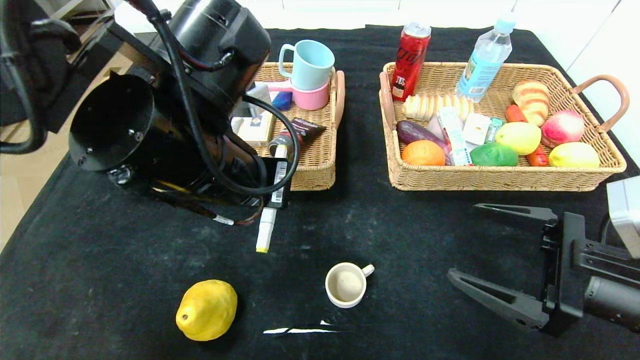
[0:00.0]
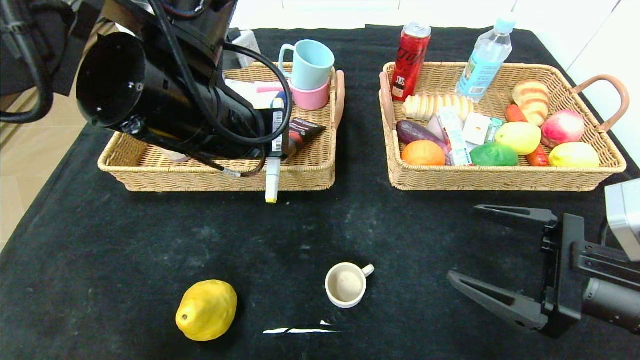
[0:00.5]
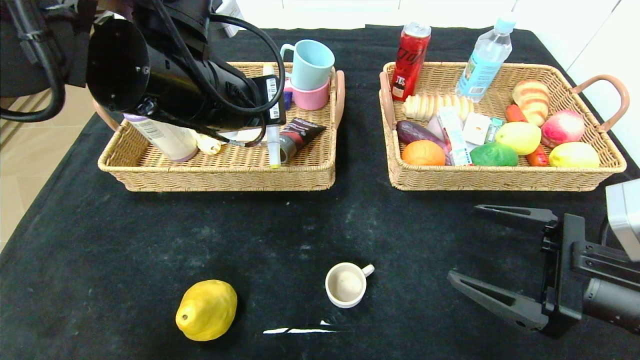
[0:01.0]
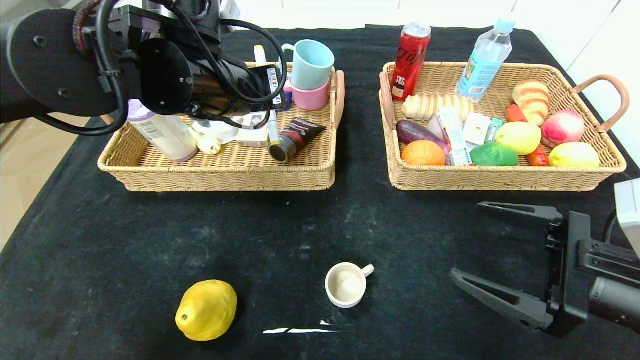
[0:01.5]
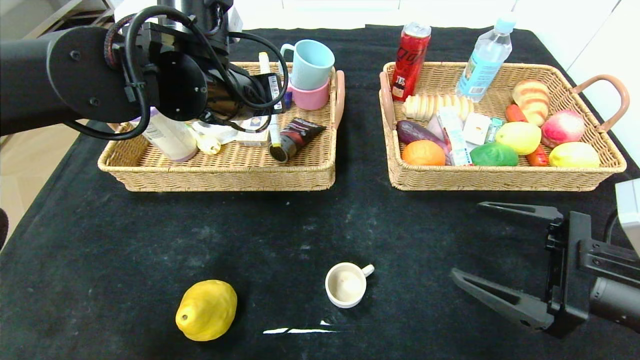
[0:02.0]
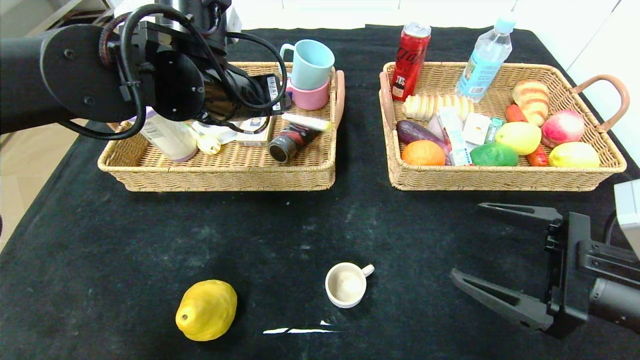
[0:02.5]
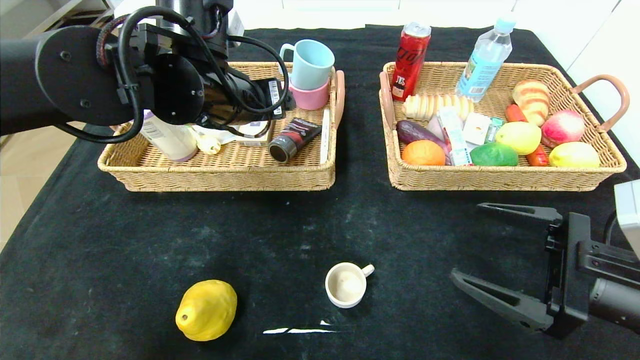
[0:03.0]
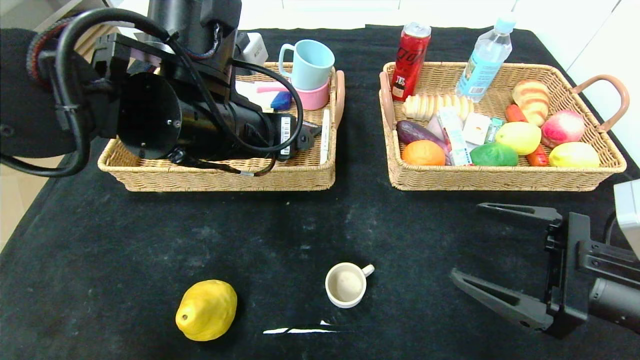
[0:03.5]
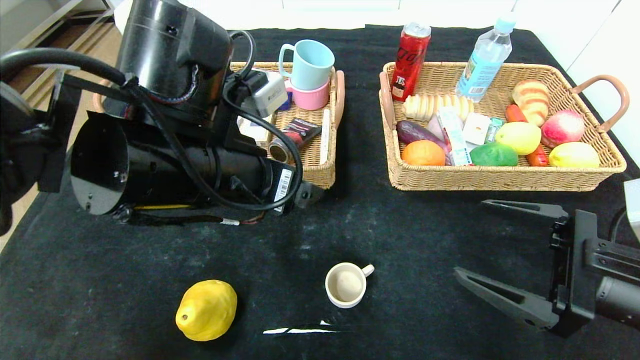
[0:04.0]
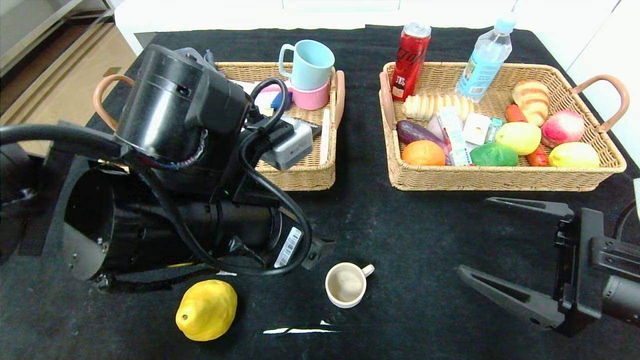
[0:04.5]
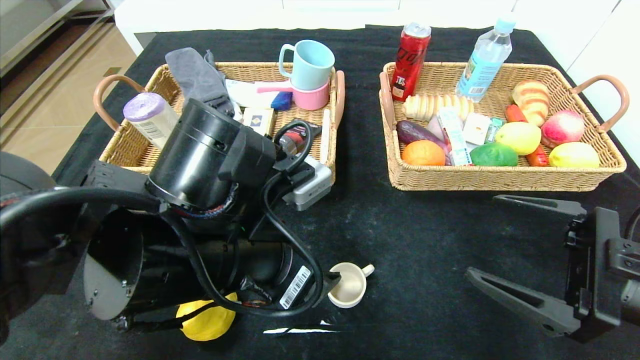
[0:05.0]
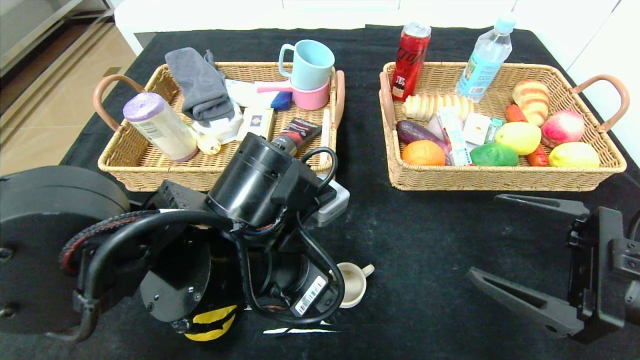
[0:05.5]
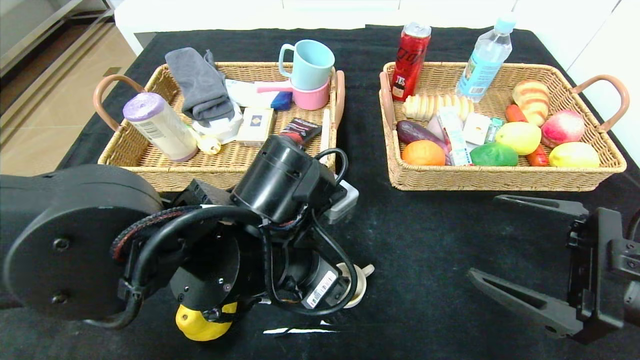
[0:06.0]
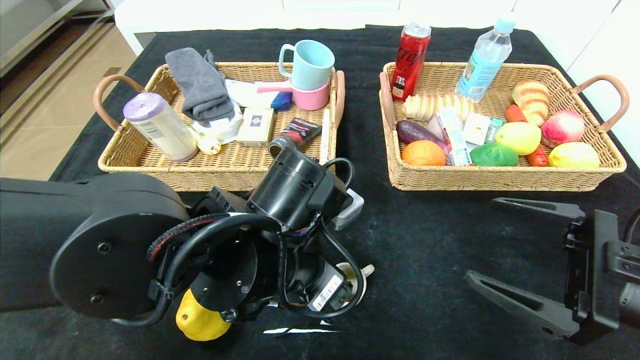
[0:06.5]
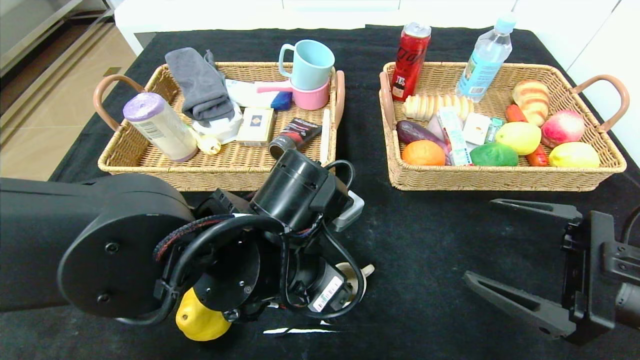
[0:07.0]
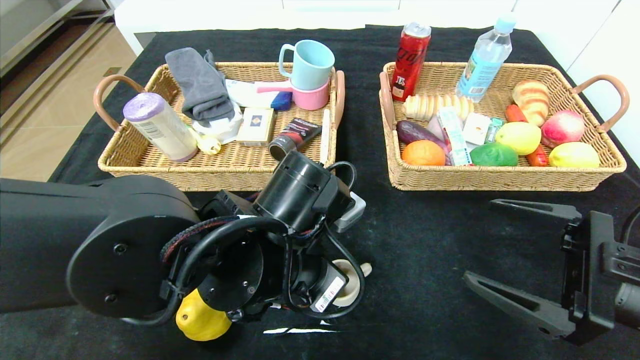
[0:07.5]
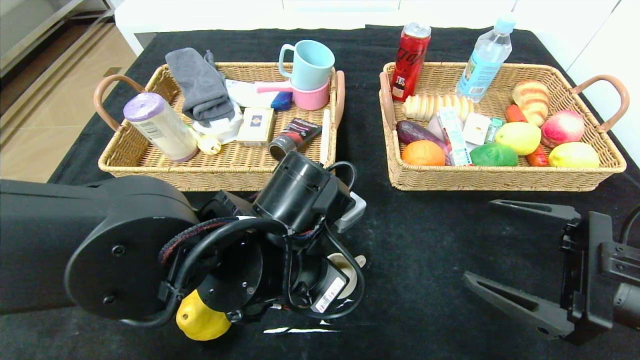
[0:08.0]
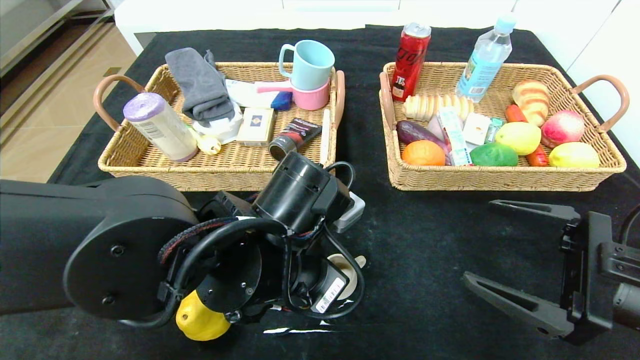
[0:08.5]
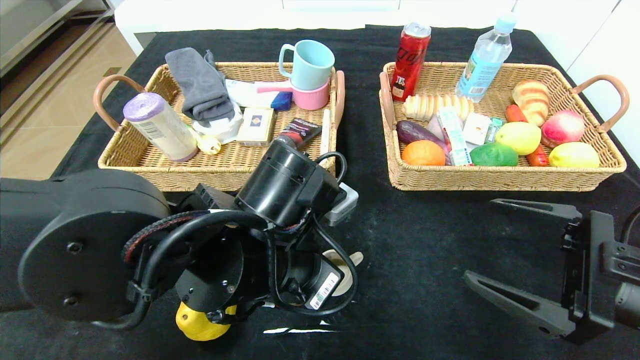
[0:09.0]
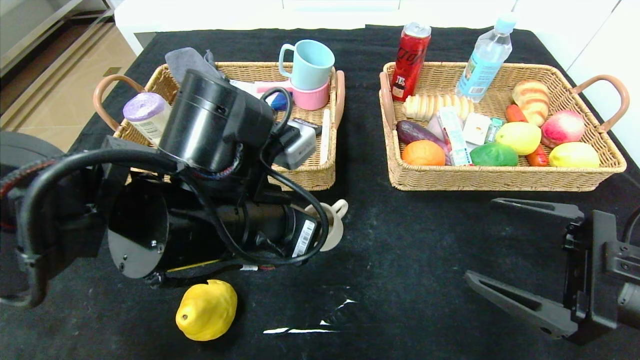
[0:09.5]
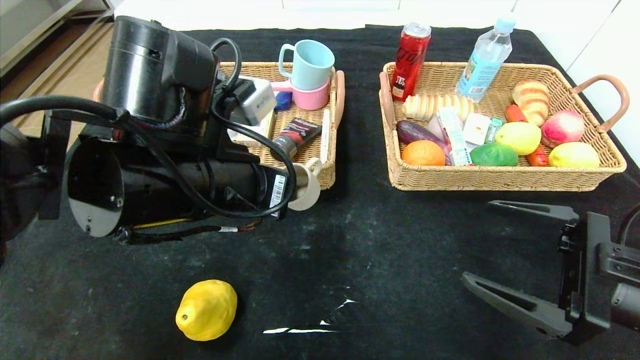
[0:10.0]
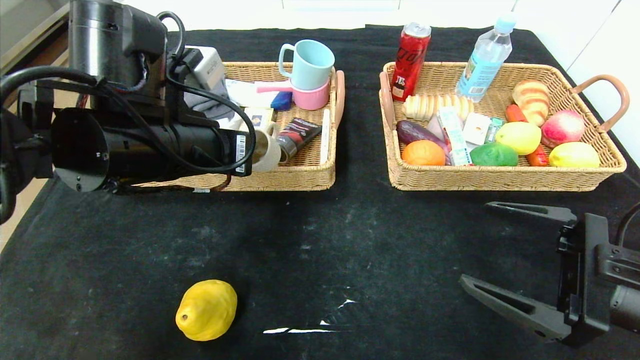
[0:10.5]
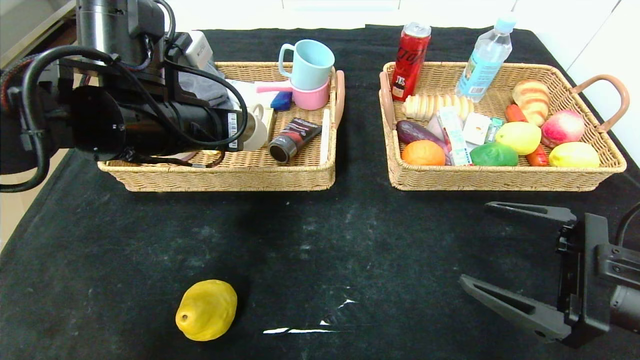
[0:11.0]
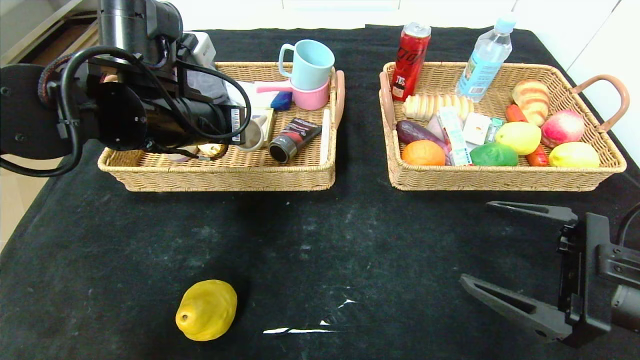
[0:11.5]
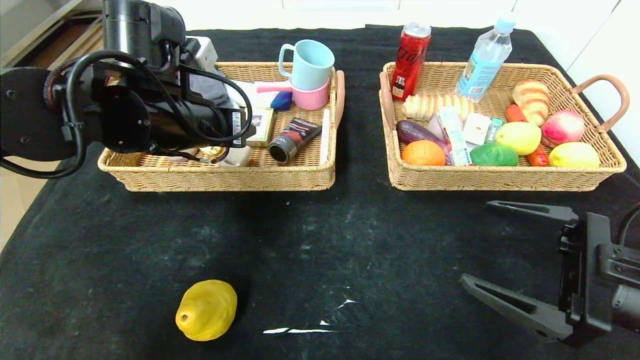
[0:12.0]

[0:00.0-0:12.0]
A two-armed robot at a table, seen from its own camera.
Step, 0:00.0 to 0:02.5: Grasp the yellow marker and put it in the left basket.
0:00.0 to 0:02.0: The left gripper shifts some 10 cm forward.
0:02.0 to 0:04.0: The left gripper heads backward, covering roughly 10 cm, and opens its fingers.
0:04.0 to 0:06.0: The left gripper heads downward, covering about 10 cm.
0:06.0 to 0:08.0: The left gripper closes its fingers.
0:08.0 to 0:10.0: The left gripper travels upward and to the left by approximately 10 cm.
0:10.0 to 0:12.0: The left gripper is displaced forward and to the left by about 10 cm, and opens up.

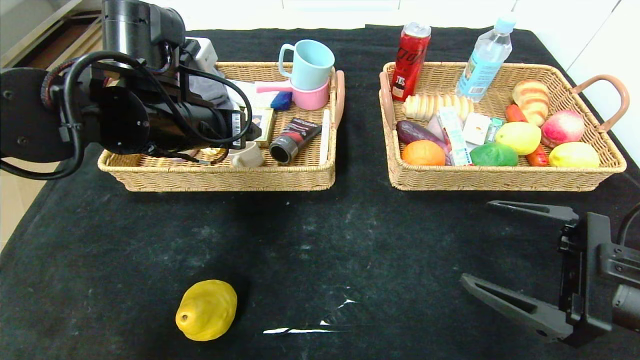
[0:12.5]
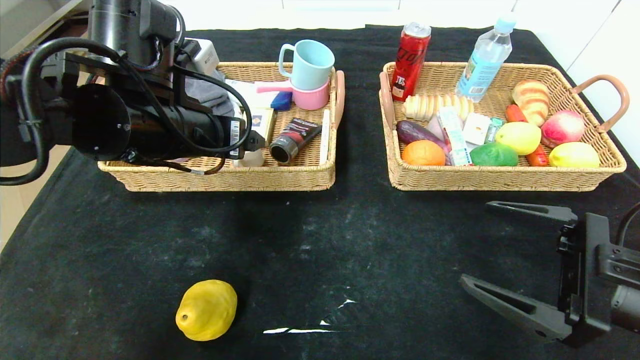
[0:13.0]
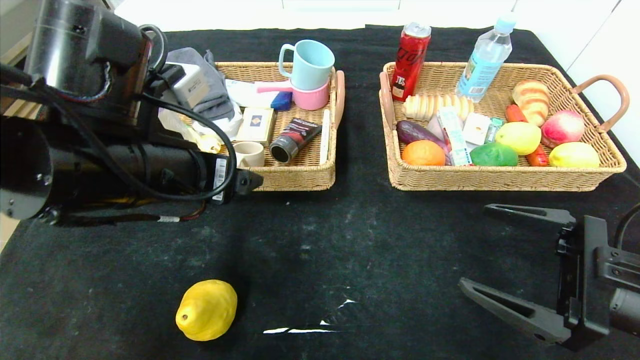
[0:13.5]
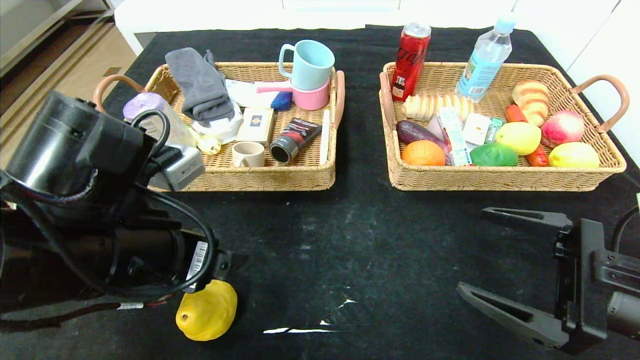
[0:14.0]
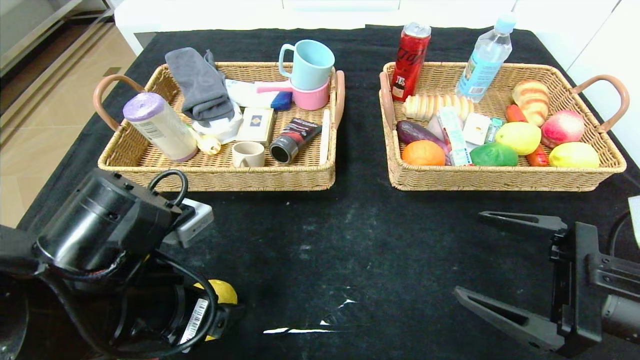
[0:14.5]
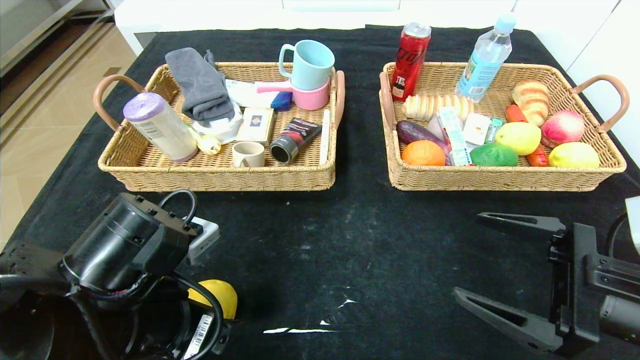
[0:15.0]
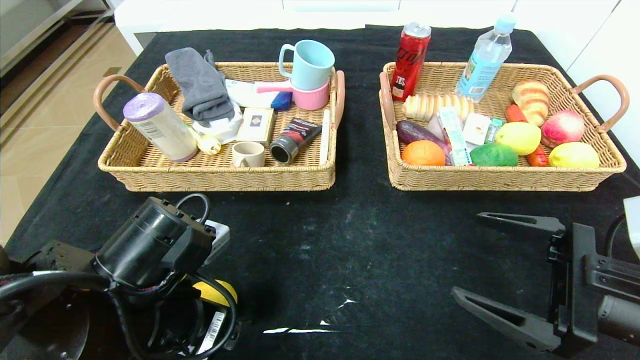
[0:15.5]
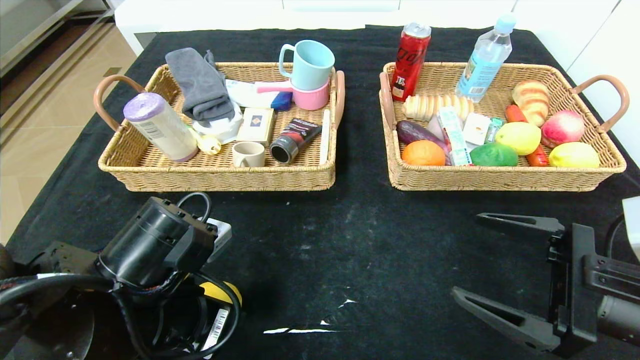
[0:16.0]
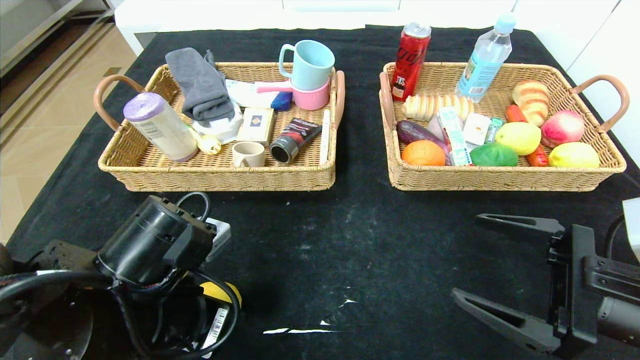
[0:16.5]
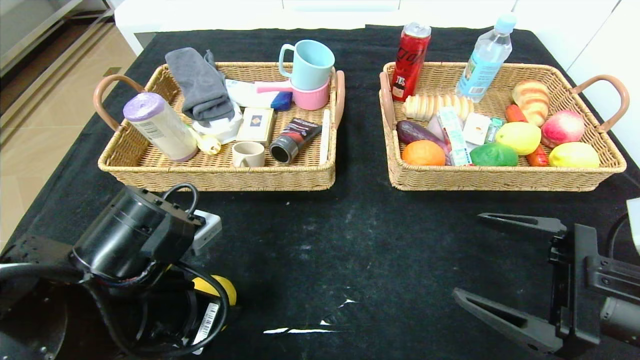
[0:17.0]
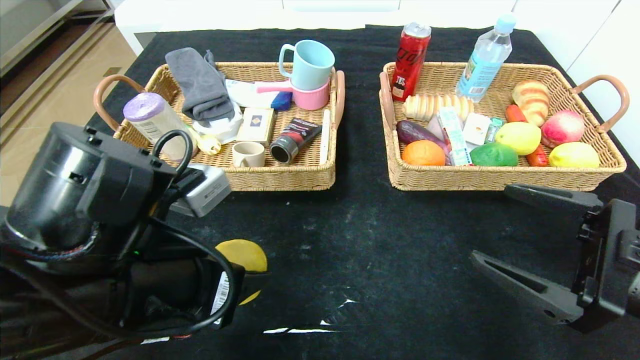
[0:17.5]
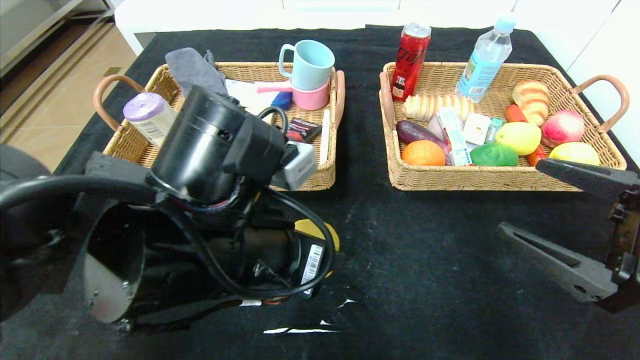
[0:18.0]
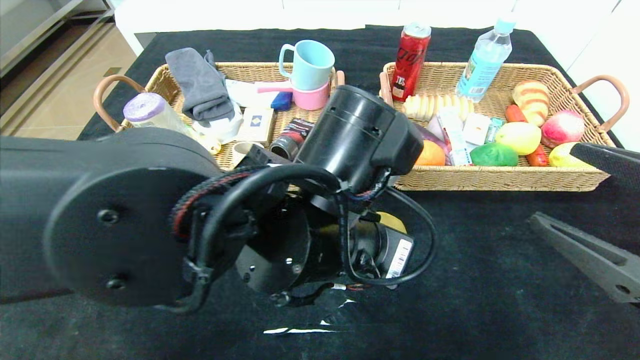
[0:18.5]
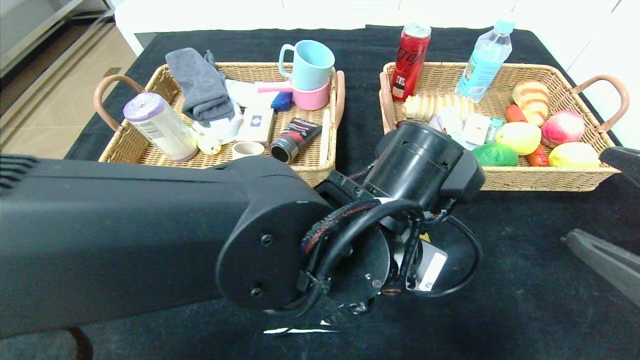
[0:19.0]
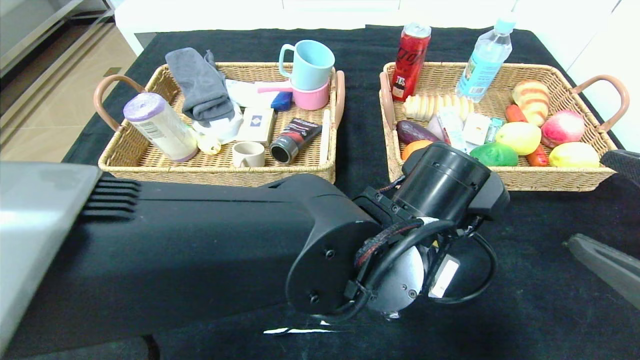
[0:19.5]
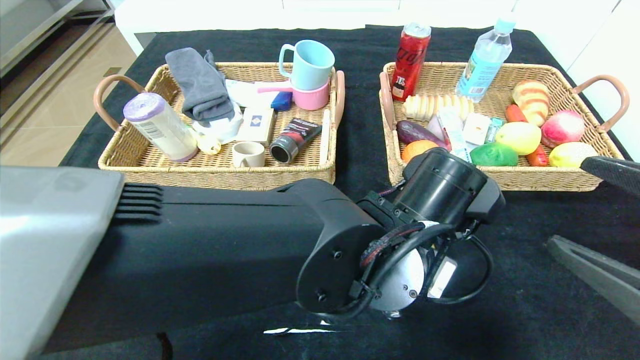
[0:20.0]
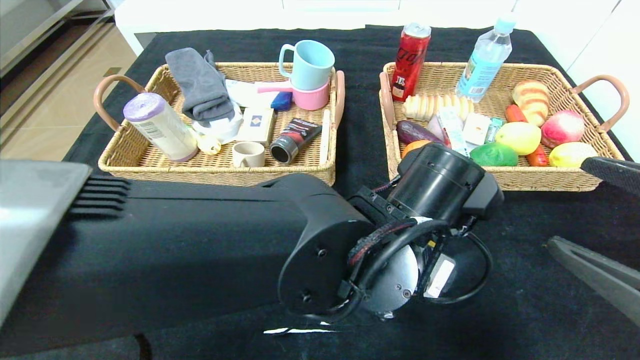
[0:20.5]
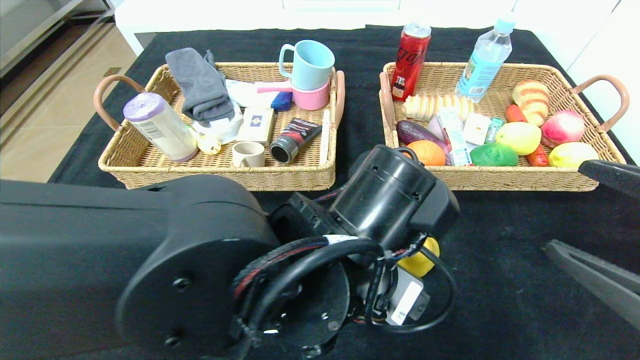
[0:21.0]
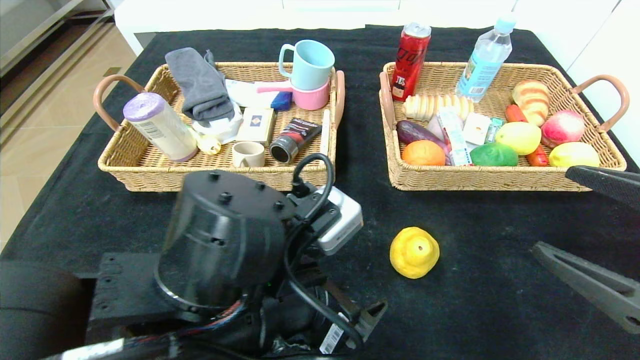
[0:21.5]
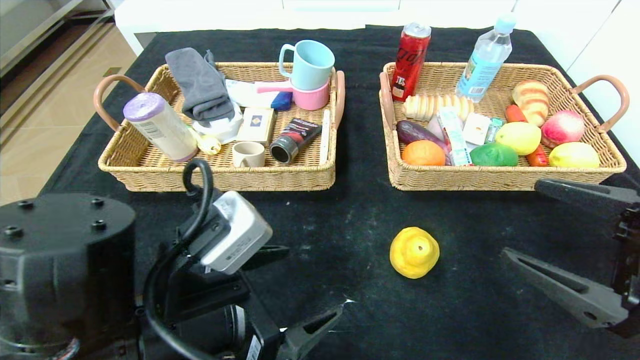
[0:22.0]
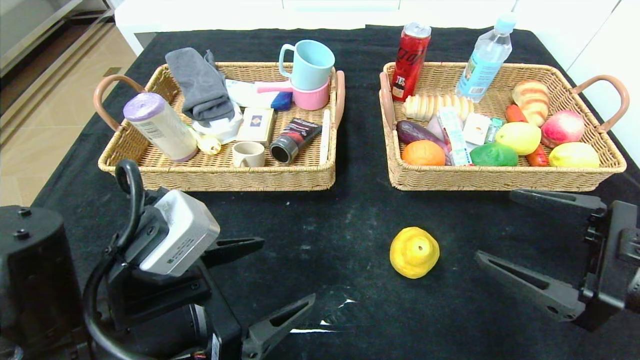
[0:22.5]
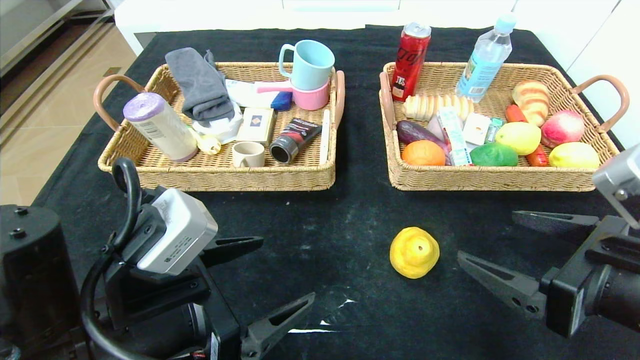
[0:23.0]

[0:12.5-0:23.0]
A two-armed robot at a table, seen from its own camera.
Step, 0:12.5 to 0:20.5: Place the pear in the center of the table.
0:12.5 to 0:14.5: The left gripper travels backward and downward by roughly 20 cm.
0:14.5 to 0:16.5: The left gripper closes its fingers.
0:16.5 to 0:19.0: The left gripper travels to the right by about 20 cm, while the right gripper heads upward, covering roughly 5 cm.
0:19.0 to 0:21.0: The left gripper opens its fingers.
0:21.0 to 0:23.0: The right gripper moves to the left, approximately 5 cm; the left gripper travels to the left by approximately 15 cm.
